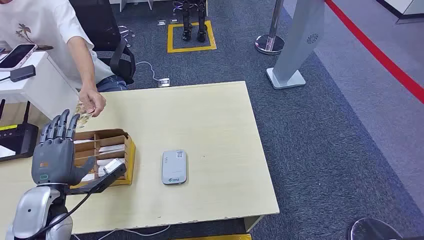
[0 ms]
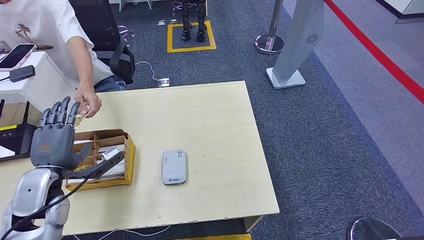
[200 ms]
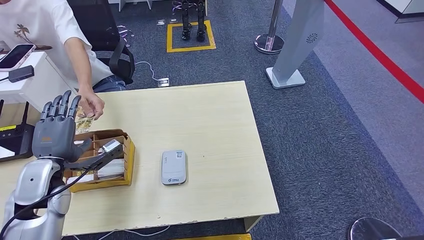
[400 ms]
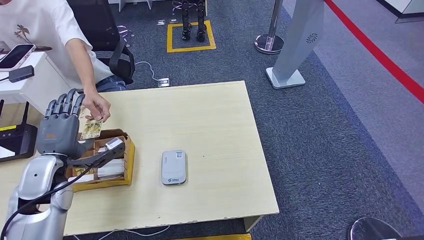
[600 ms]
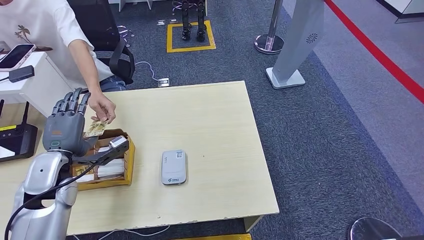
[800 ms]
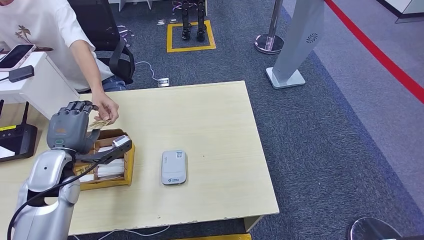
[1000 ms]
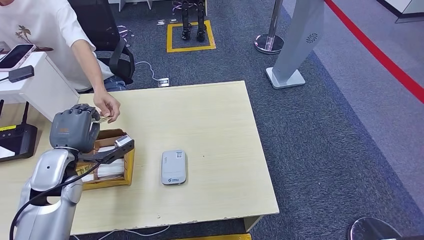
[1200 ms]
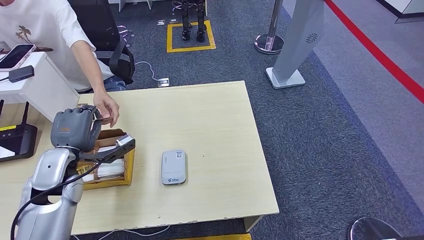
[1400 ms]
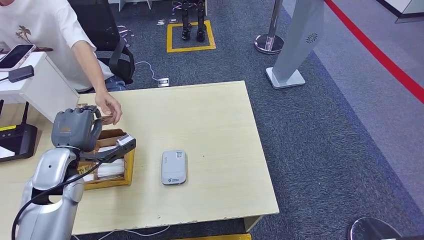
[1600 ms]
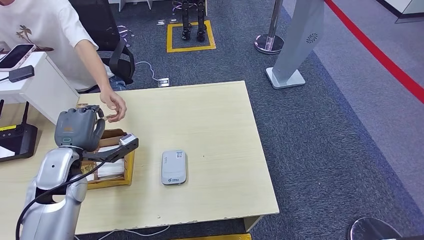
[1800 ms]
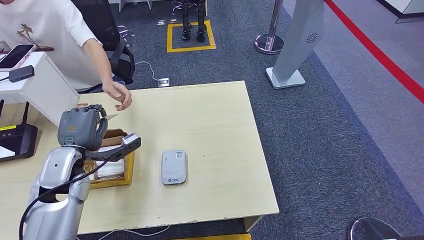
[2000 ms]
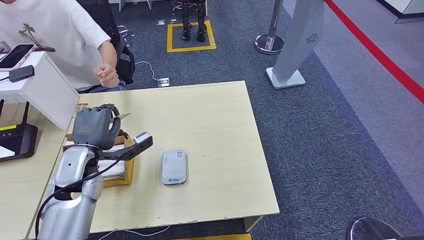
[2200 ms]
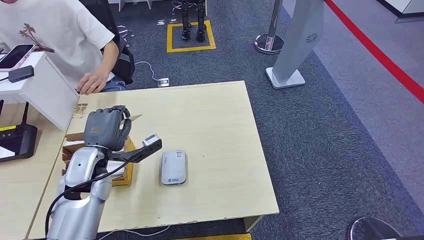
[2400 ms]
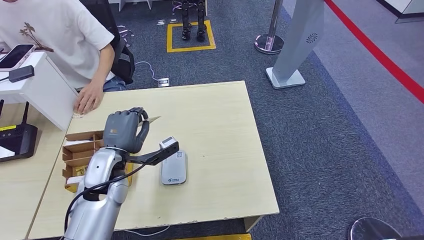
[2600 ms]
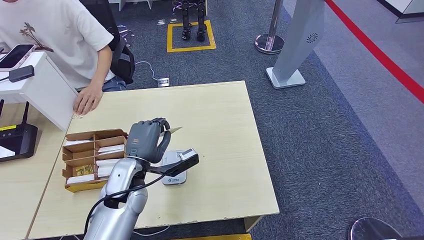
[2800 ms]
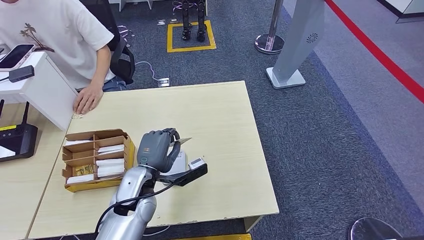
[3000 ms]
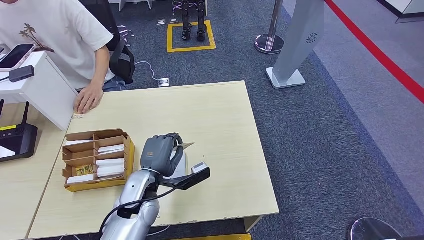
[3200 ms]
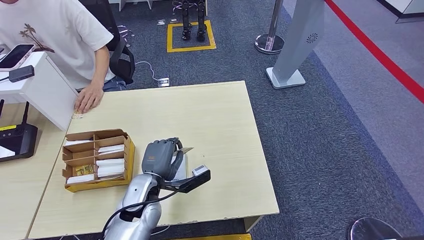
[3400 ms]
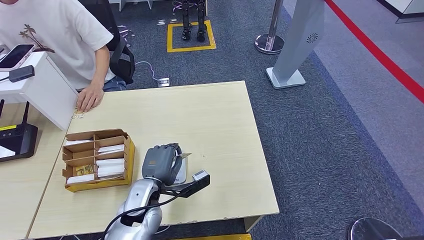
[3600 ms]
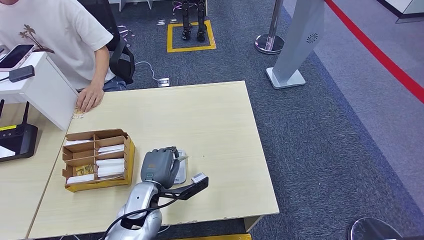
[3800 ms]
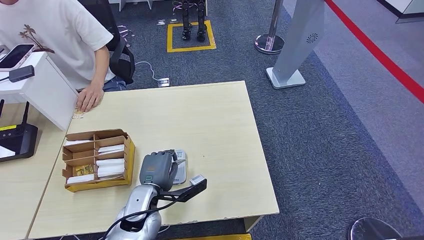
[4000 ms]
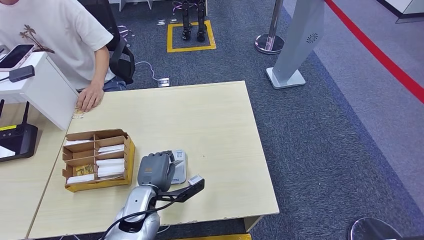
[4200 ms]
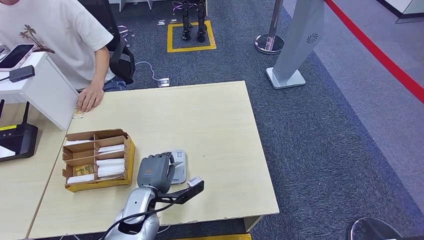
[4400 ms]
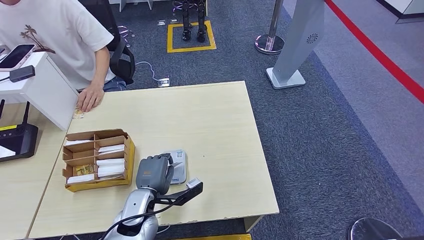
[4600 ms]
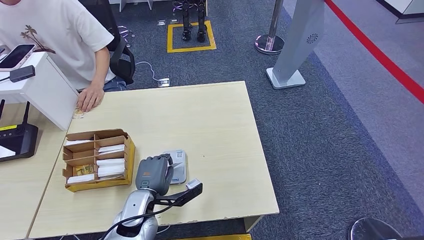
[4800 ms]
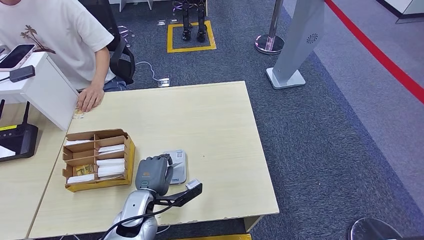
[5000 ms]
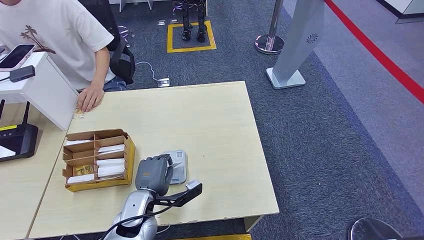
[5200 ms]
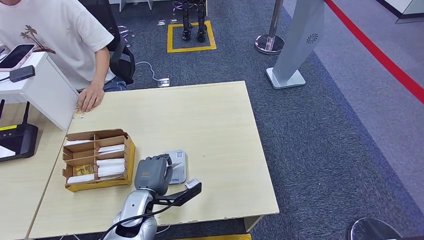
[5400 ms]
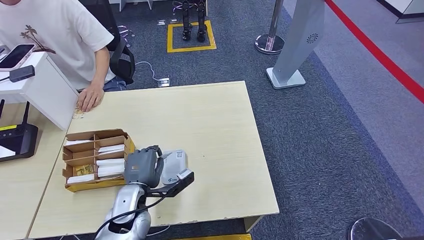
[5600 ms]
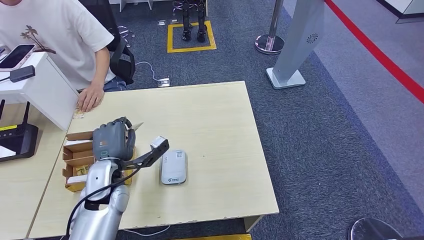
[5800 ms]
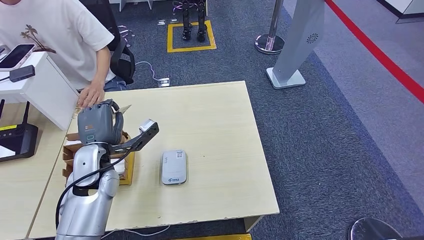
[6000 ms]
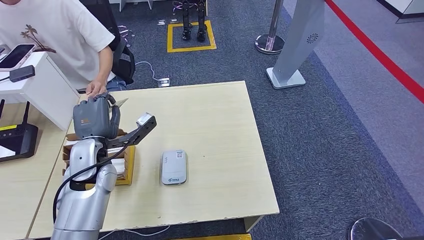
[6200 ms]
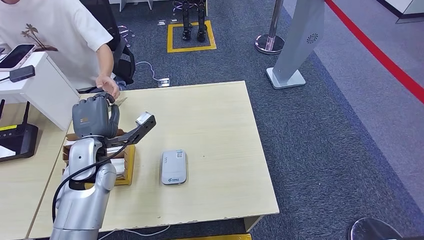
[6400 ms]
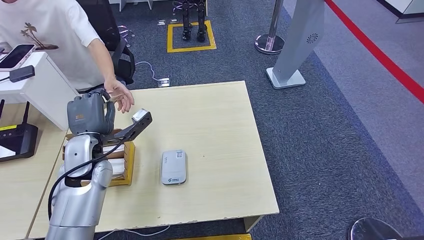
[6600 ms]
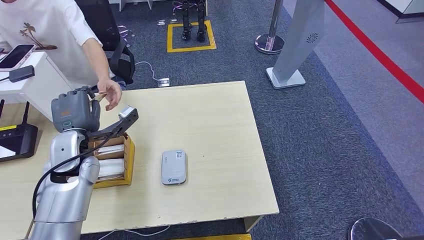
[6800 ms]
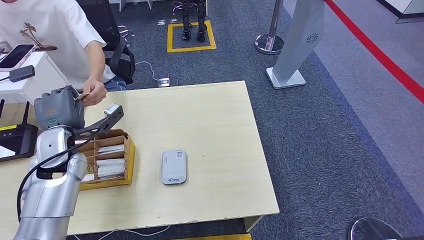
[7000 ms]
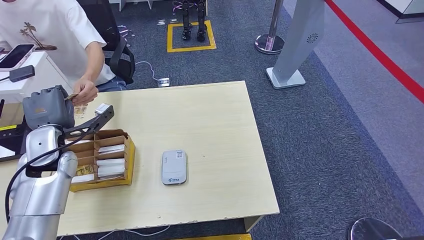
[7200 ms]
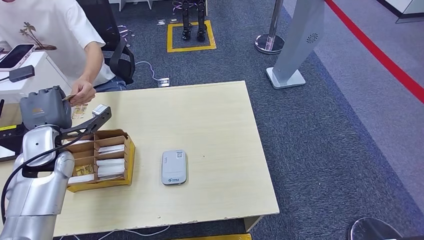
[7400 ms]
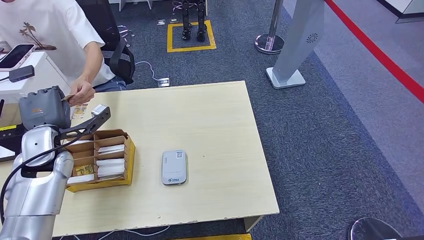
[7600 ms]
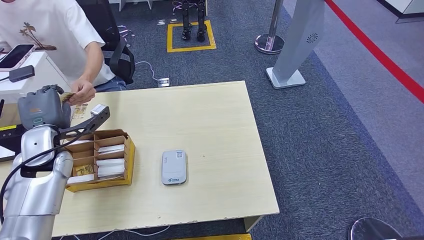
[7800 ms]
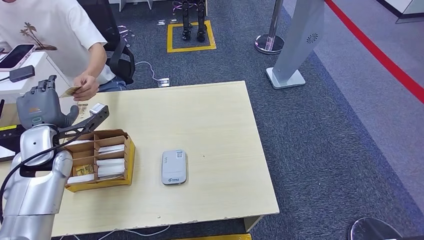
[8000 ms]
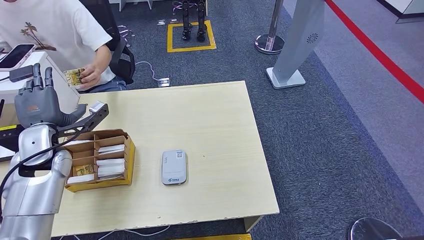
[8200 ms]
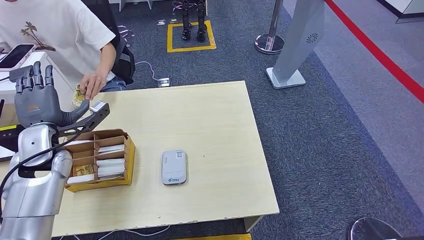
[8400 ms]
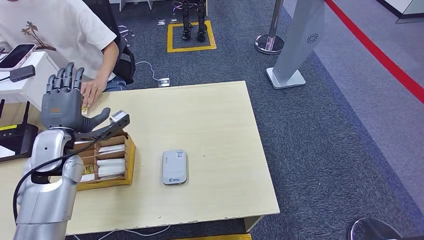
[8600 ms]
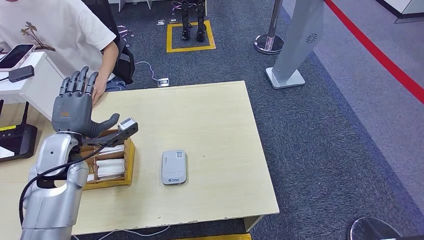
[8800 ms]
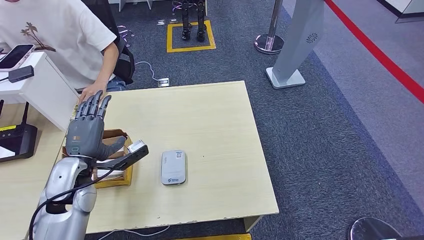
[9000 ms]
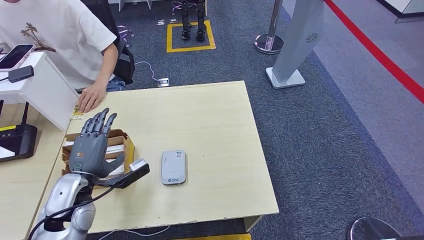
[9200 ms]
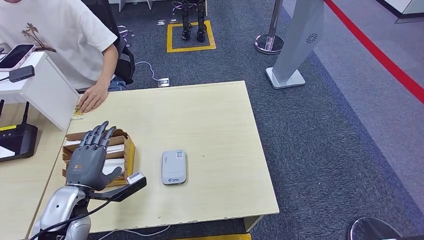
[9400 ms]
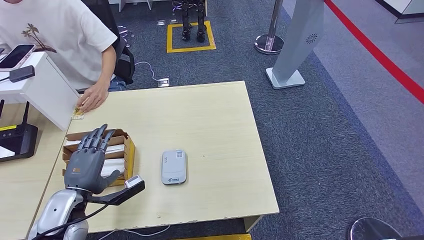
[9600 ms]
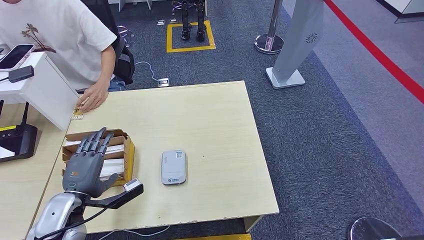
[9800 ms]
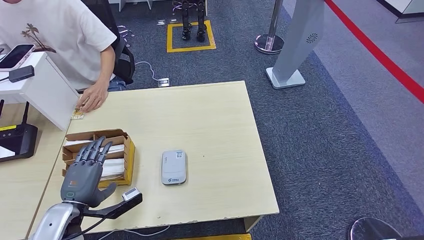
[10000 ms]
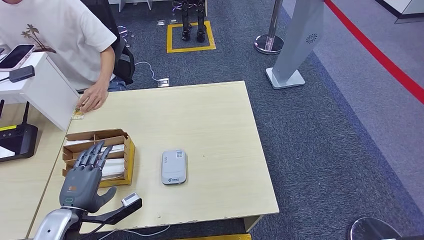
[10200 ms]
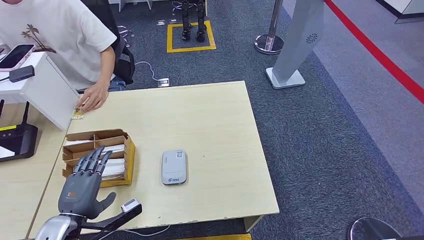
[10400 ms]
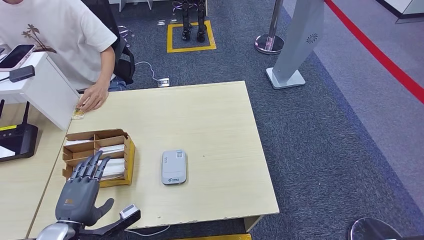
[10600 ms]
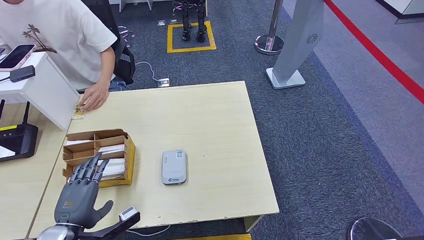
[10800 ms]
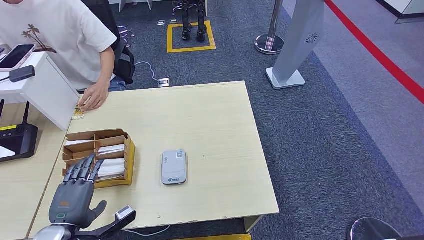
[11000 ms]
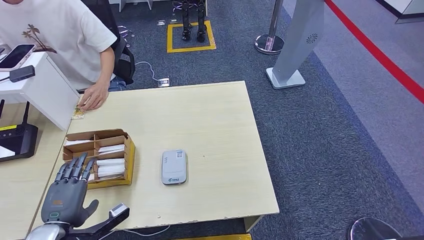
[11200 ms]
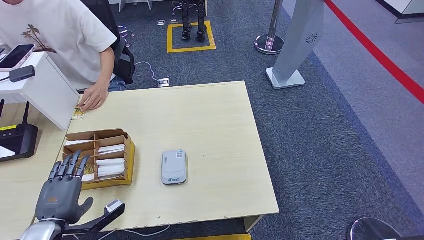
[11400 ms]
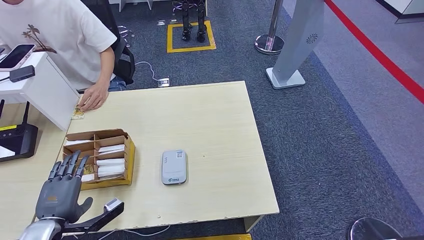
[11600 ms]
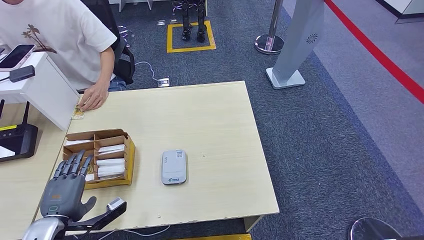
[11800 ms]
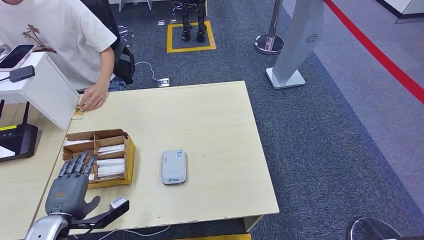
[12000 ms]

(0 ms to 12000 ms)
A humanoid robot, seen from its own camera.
Step, 0 ms - 1000 ms: Take the ID card from the person's hand.
Step, 1400 ms - 4600 ms: Place the ID card on the card reader.
Step, 4800 ms - 7400 ms: Hand the ID card to the person.
1600 ms - 3000 ms: The left hand travels to the right by approximately 15 cm.
3000 ms - 4400 ms: The left hand heads downward, covering approximately 5 cm.
4400 ms - 6000 ms: The left hand heads upward, to the left and forward, covering approximately 15 cm.
6000 ms - 7600 ms: The left hand goes roughly 10 cm to the left.
7600 ms - 9000 ms: The left hand moves to the right, some 5 cm.
9000 ms - 10400 ms: The left hand is displaced backward and downward by approximately 15 cm.
10400 ms - 12000 ms: The hands move only a little.

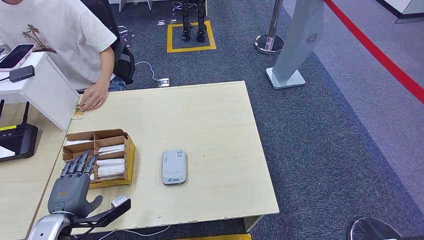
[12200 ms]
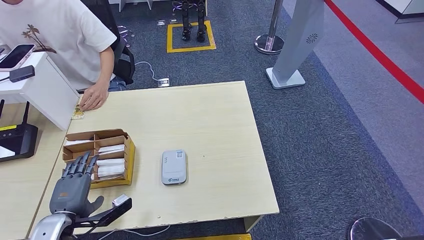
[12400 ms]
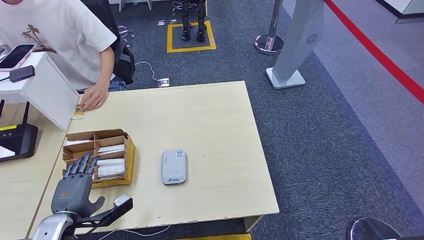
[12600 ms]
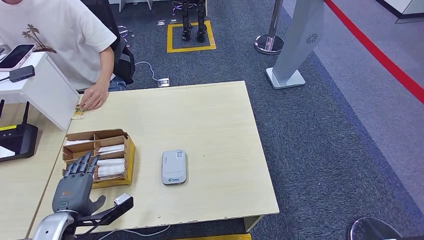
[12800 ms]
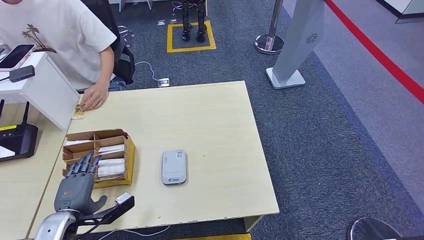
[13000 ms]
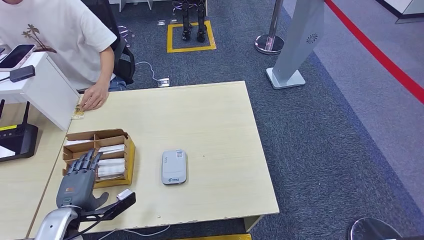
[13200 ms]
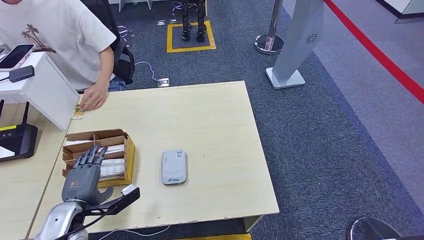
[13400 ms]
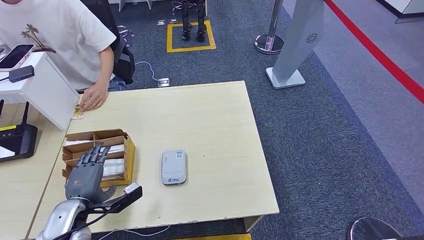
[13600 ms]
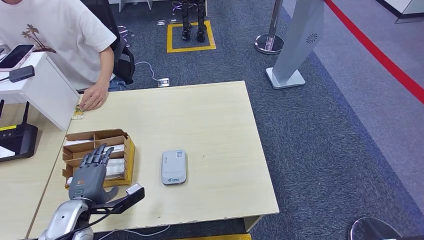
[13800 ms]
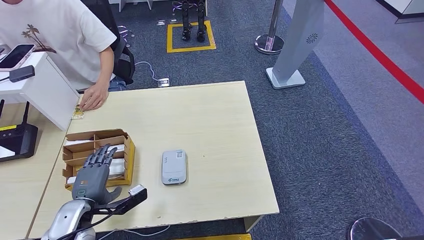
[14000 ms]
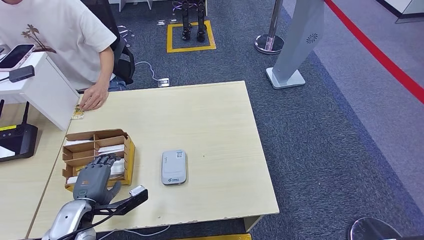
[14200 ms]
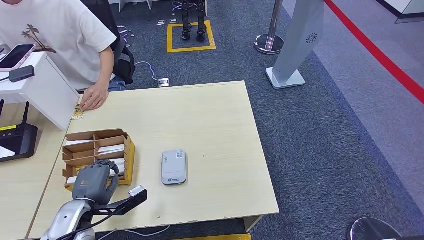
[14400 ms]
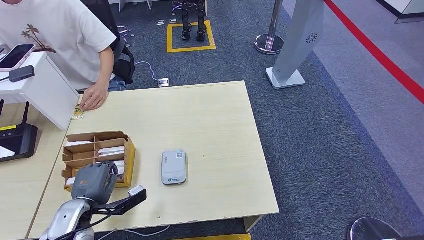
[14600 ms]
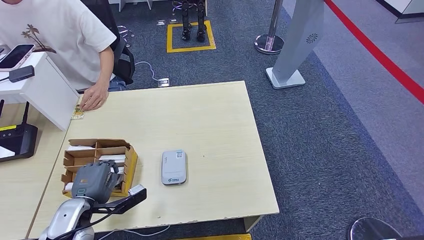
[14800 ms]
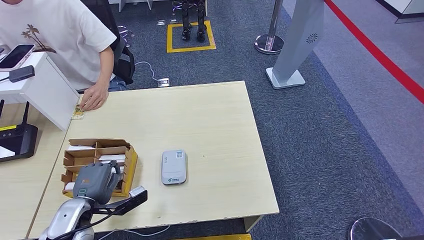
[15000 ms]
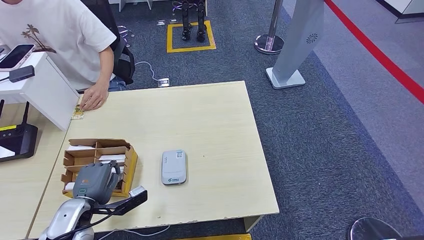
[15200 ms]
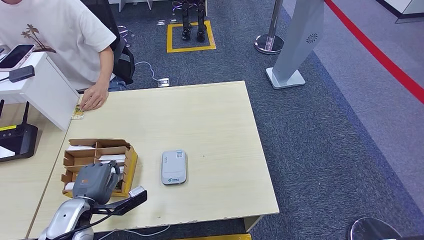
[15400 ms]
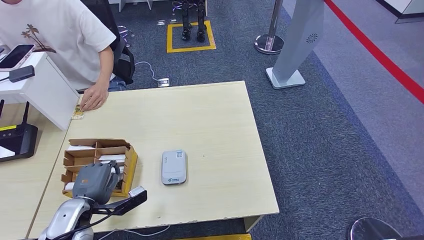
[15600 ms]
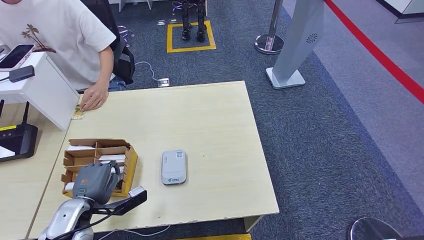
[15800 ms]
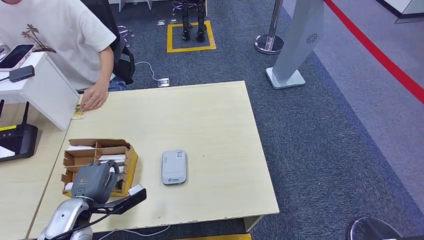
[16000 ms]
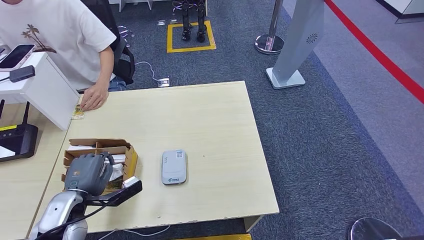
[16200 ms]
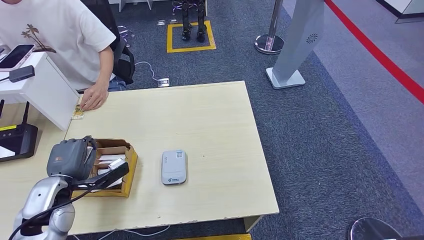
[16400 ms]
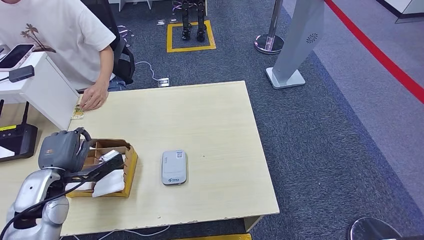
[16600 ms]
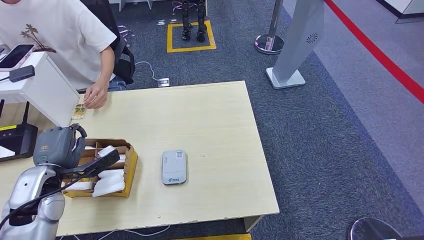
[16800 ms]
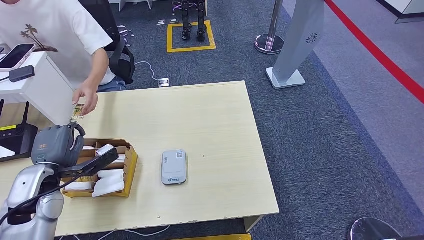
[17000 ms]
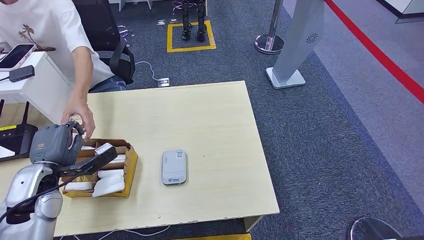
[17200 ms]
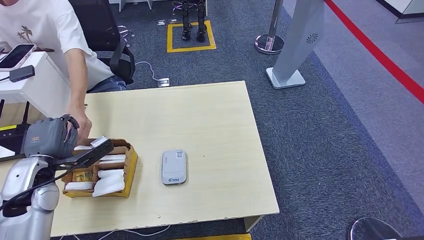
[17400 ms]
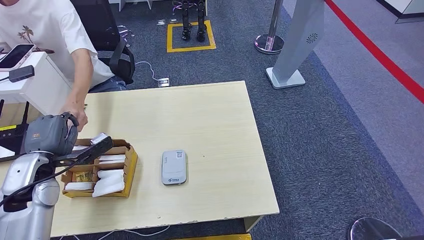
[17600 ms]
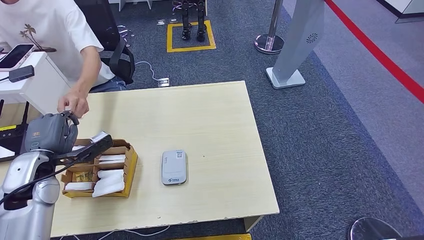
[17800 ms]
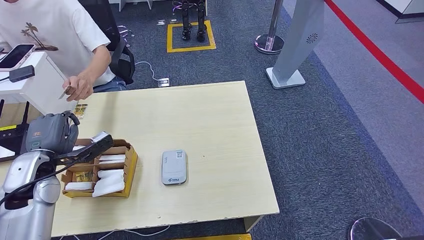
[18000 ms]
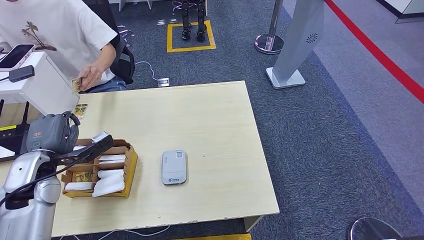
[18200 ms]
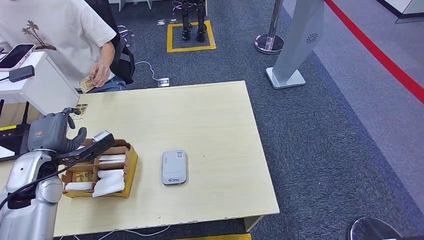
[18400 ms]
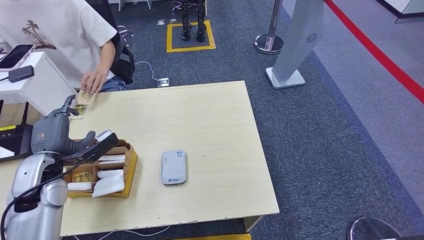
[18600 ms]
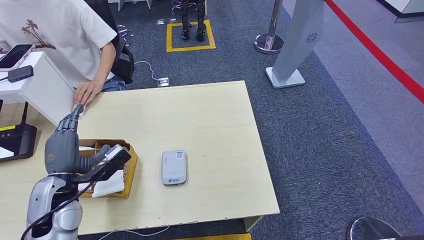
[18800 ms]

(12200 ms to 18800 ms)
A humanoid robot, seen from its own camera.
Step, 12200 ms - 14600 ms: Pick up the room key from the key card box.
12200 ms - 13800 ms: The hands make only small movements.
13800 ms - 15400 ms: Both hands stay about where they are.
15400 ms - 17200 ms: The left hand is displaced upward, forward and to the left by roughly 10 cm.
17200 ms - 18800 ms: The left hand ends up some 5 cm from where it was.
